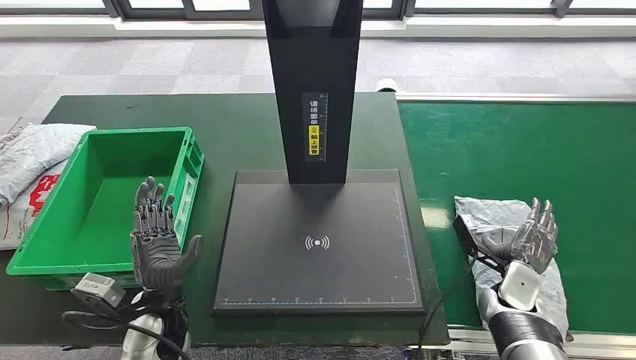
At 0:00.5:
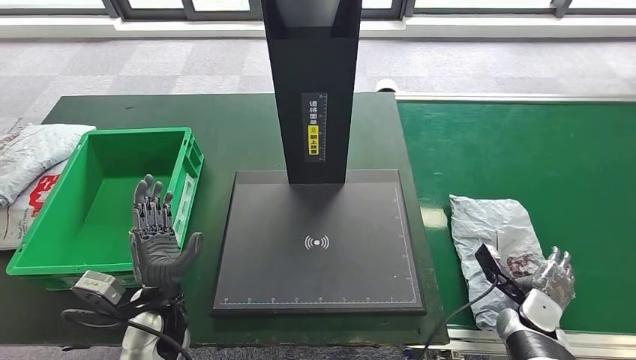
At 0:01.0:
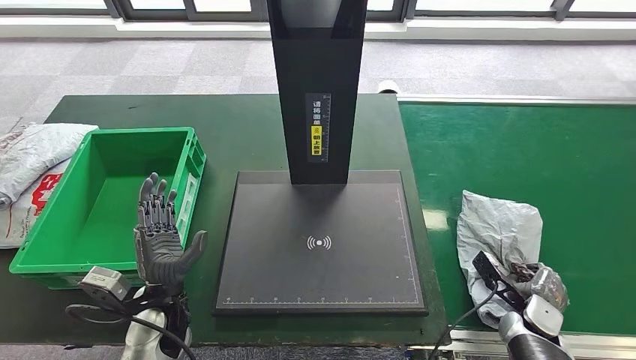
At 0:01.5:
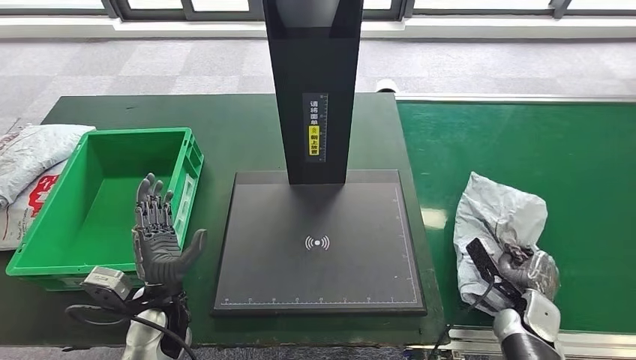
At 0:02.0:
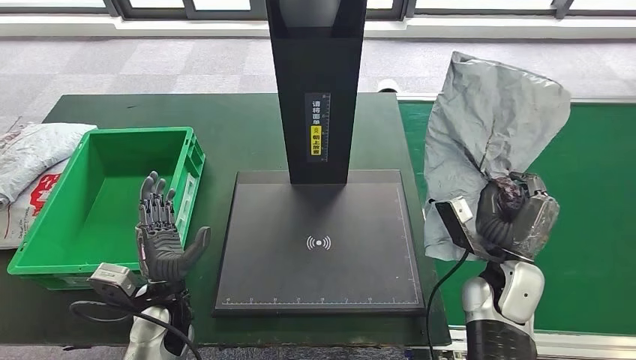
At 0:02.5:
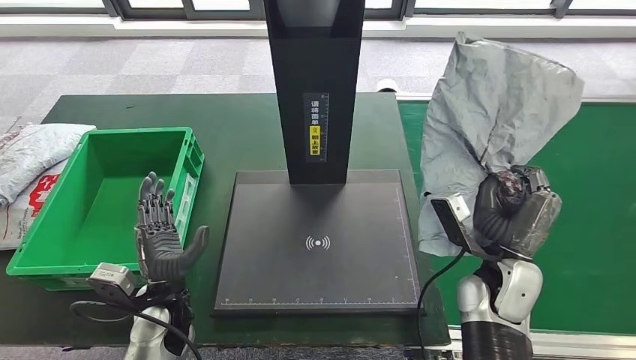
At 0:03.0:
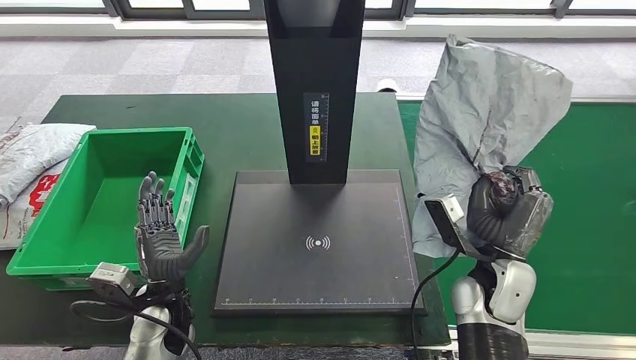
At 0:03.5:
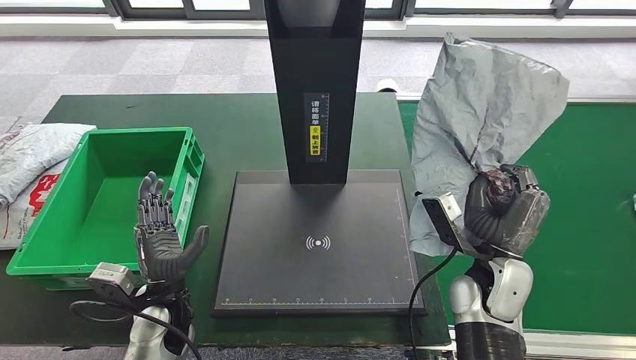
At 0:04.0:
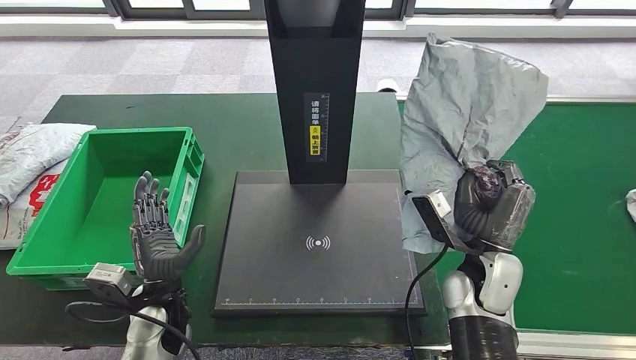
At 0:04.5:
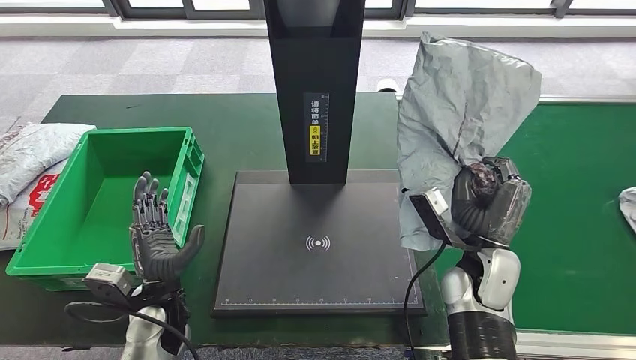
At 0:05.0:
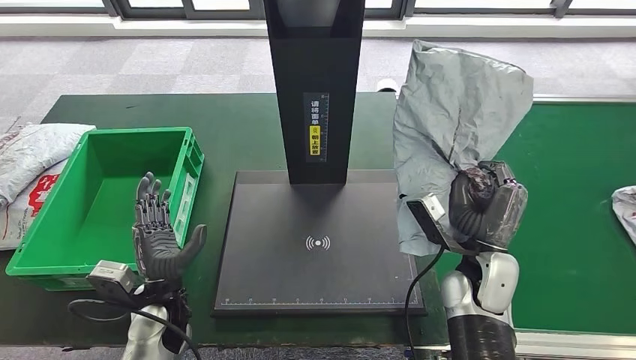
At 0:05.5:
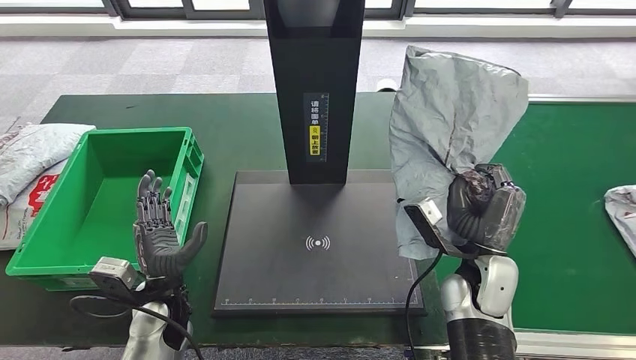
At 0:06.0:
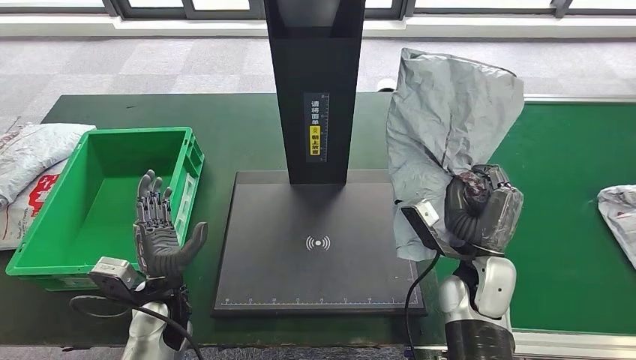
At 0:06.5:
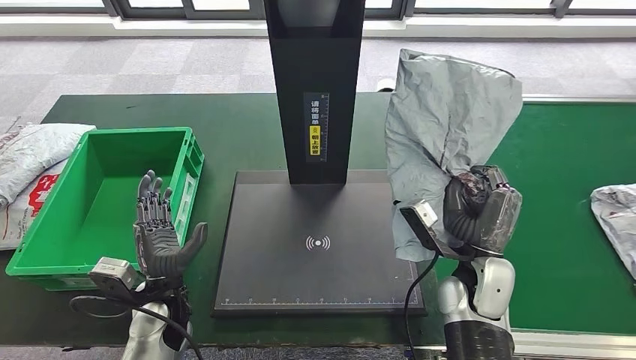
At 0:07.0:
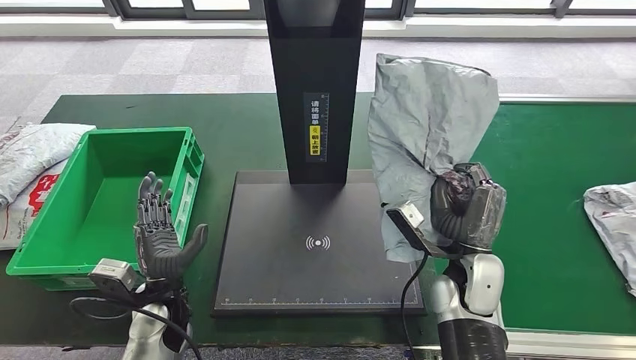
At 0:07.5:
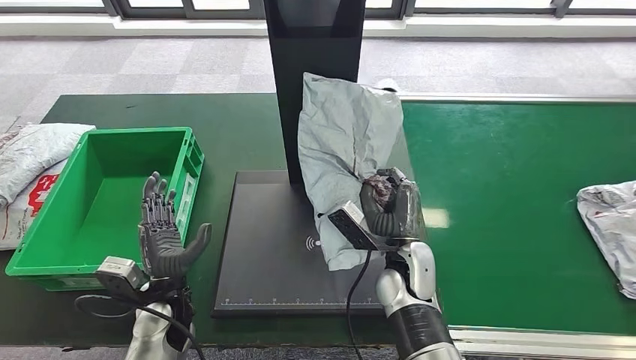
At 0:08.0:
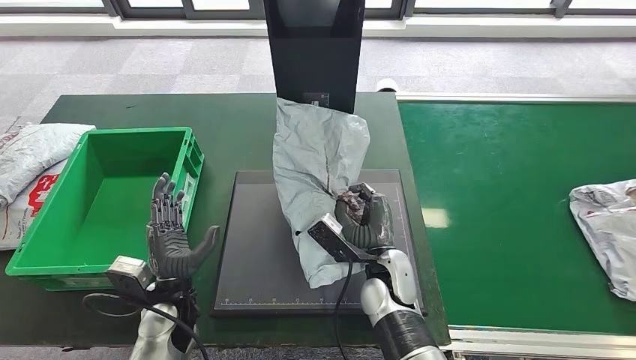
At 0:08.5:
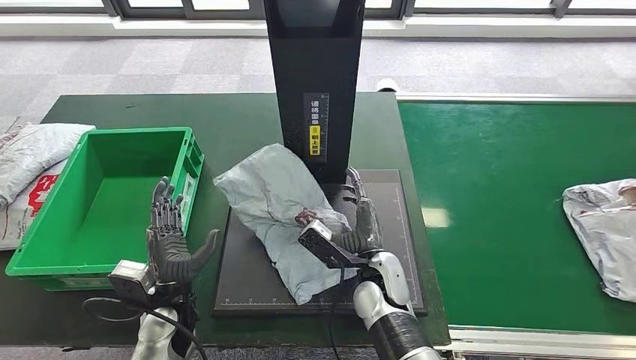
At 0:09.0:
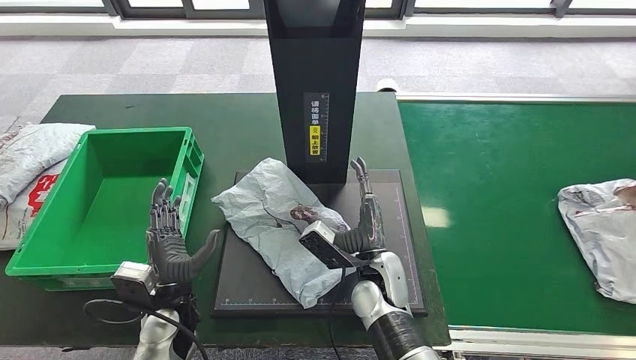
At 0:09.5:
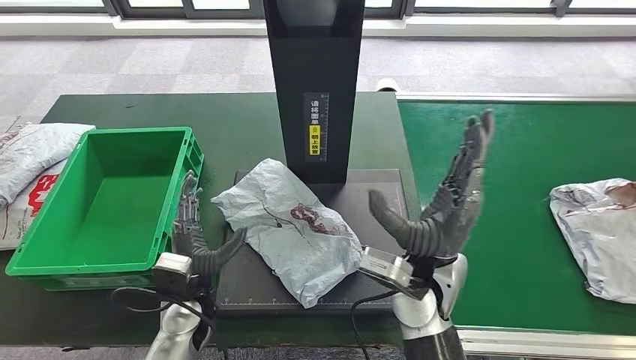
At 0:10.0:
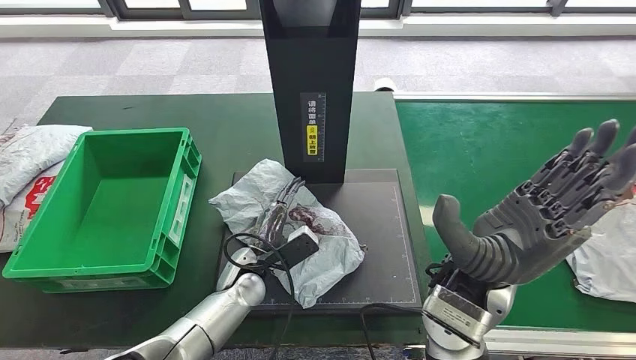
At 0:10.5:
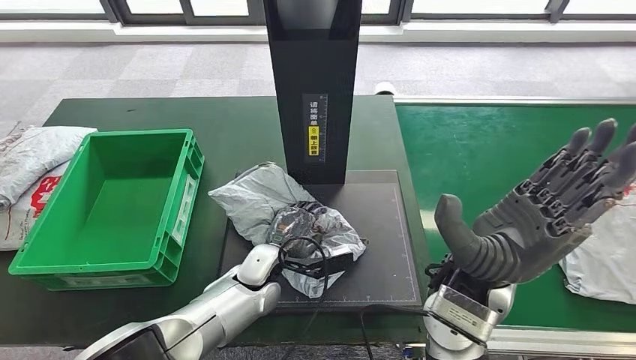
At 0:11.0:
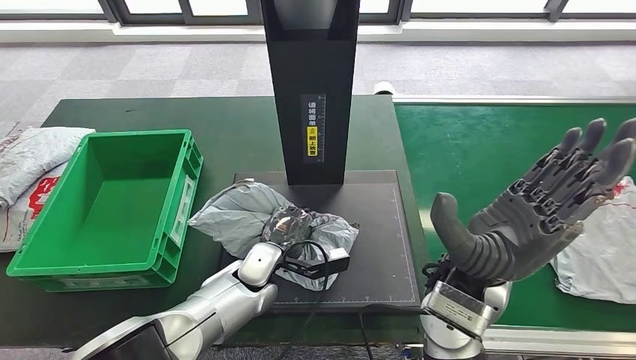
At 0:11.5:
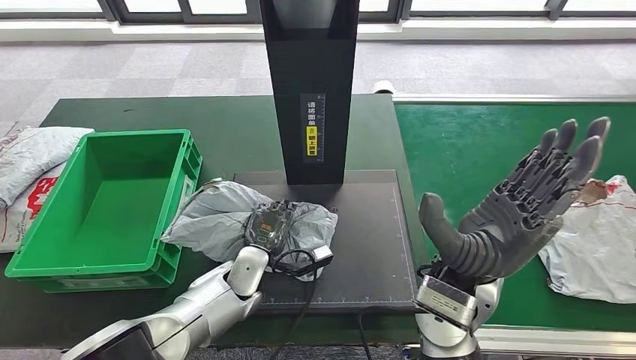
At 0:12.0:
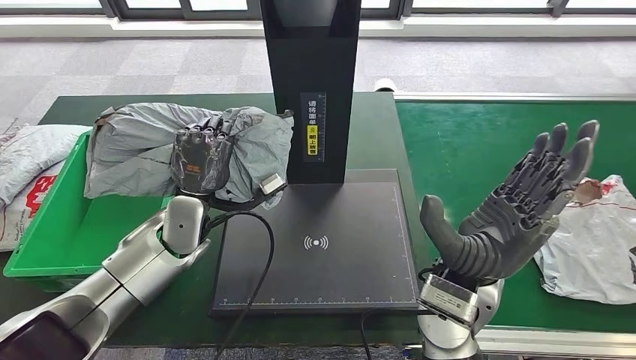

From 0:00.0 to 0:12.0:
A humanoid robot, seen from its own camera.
Step, from 0:00.0 to 0:02.0: Take the parcel off the conveyor belt.
Step, from 0:08.0 to 0:08.5: Place the parcel onto the inbound machine.
From 0:02.0 to 0:04.0: The hands stay close to where they were, moving slightly.
From 0:04.0 to 0:06.0: Neither hand changes place.

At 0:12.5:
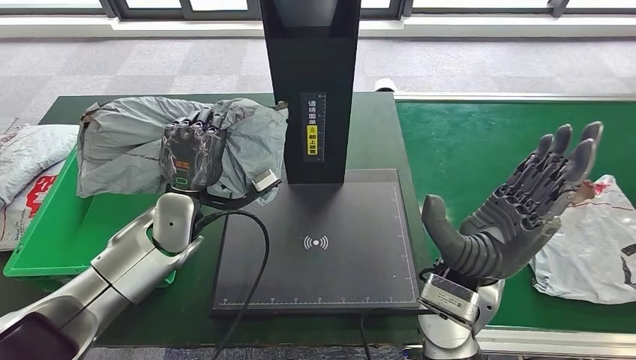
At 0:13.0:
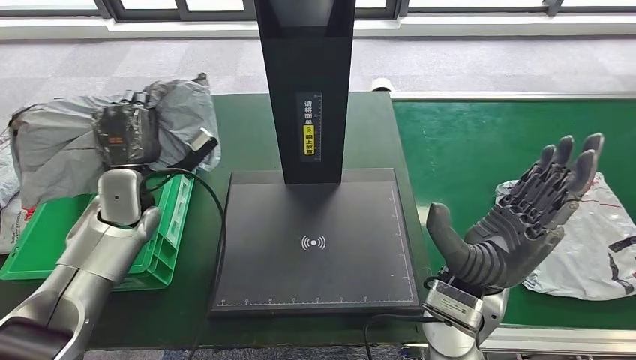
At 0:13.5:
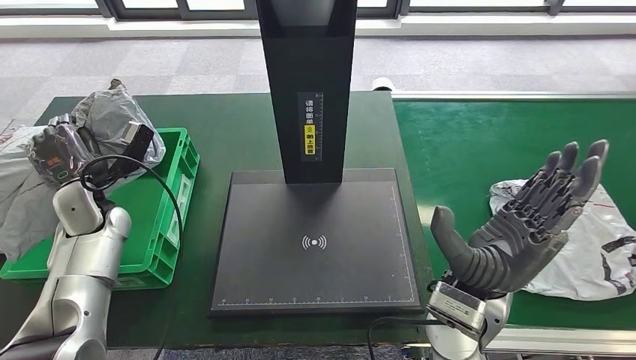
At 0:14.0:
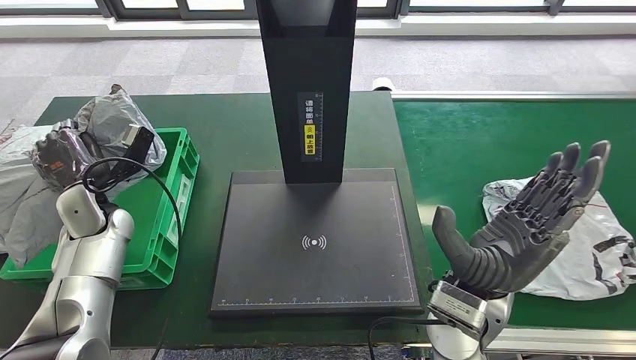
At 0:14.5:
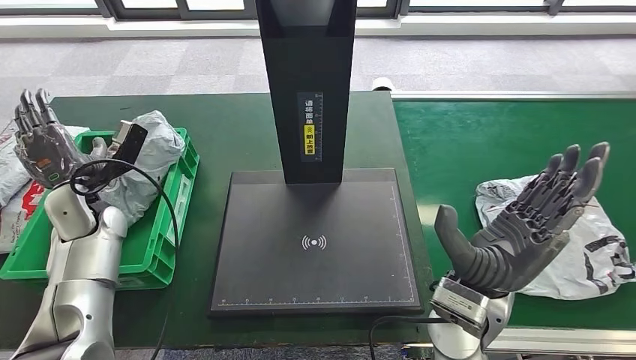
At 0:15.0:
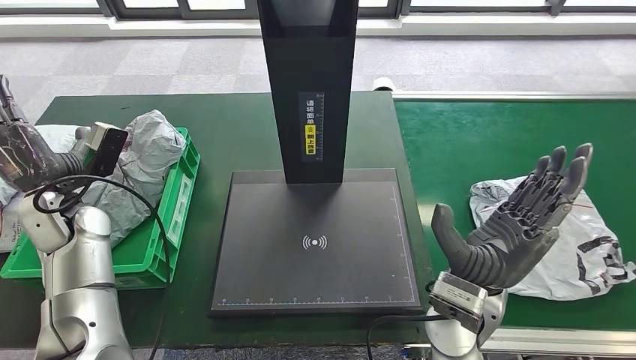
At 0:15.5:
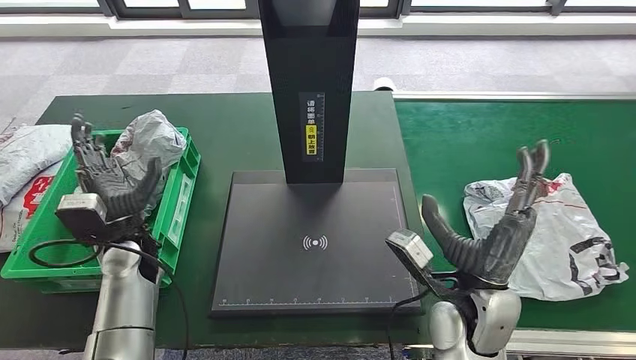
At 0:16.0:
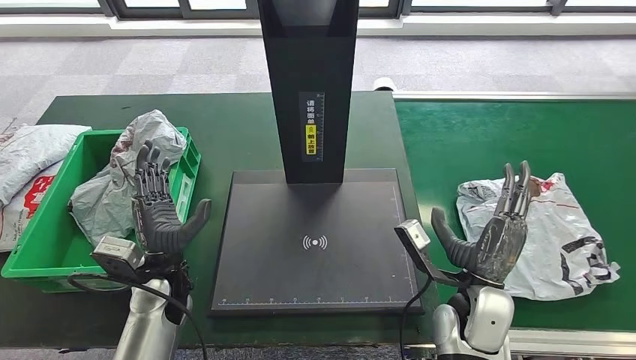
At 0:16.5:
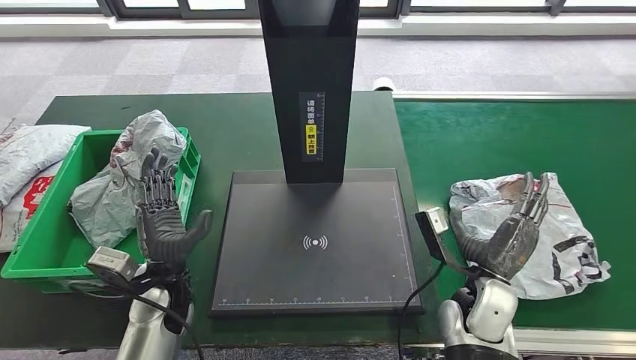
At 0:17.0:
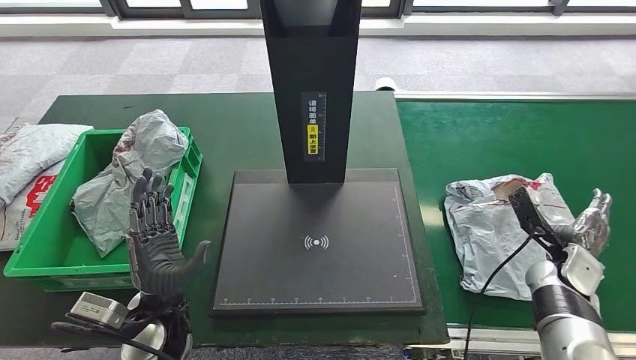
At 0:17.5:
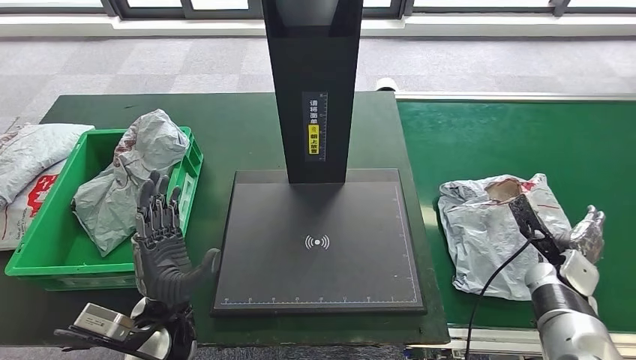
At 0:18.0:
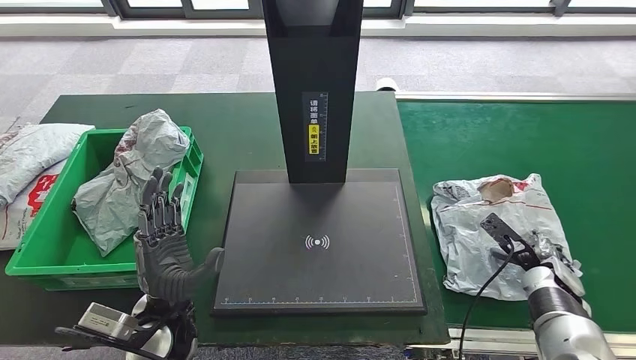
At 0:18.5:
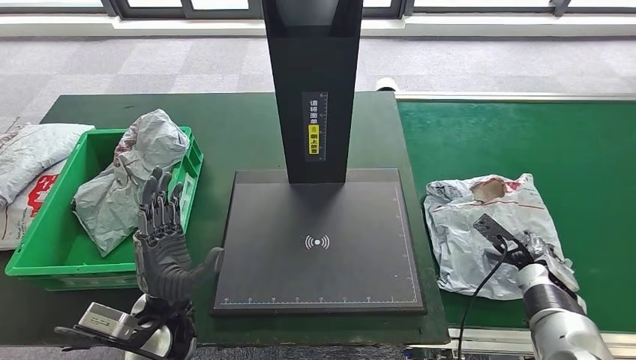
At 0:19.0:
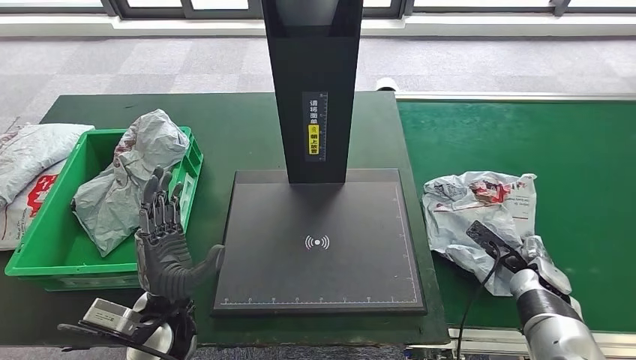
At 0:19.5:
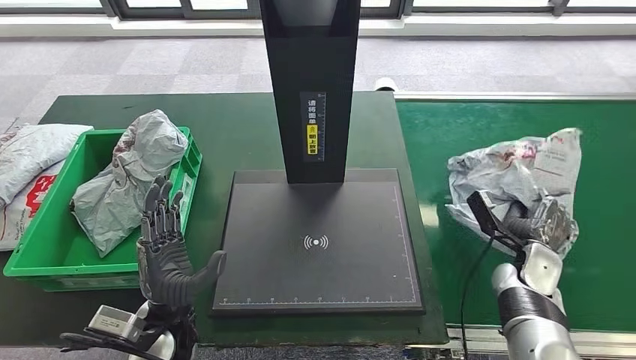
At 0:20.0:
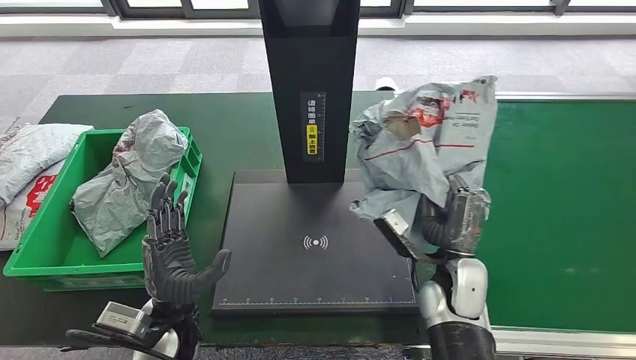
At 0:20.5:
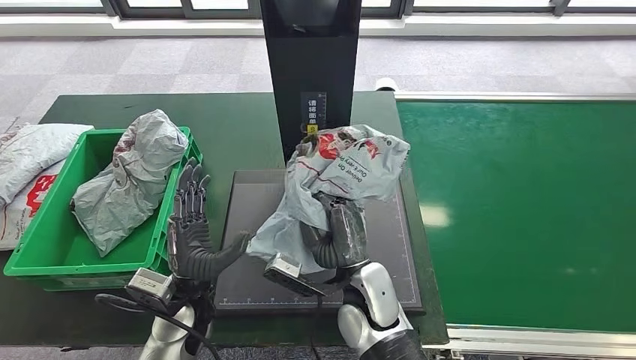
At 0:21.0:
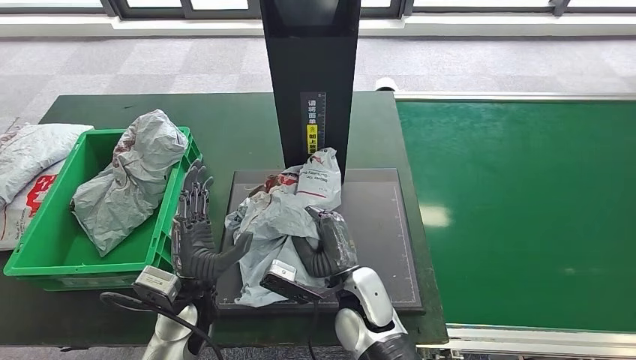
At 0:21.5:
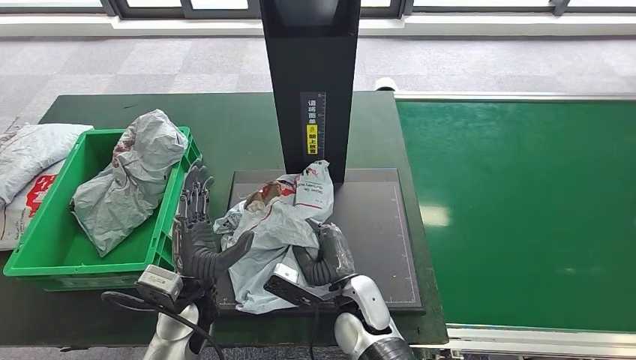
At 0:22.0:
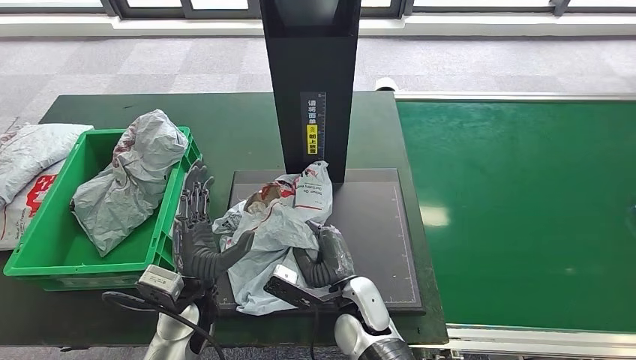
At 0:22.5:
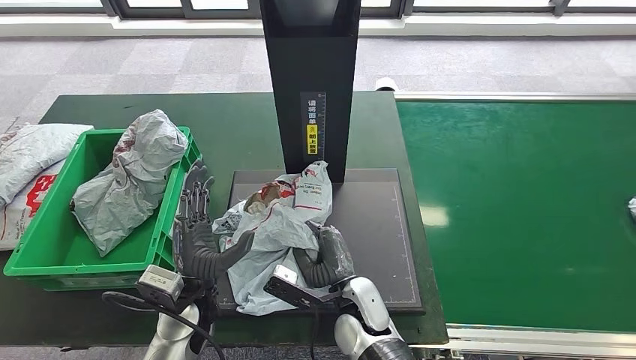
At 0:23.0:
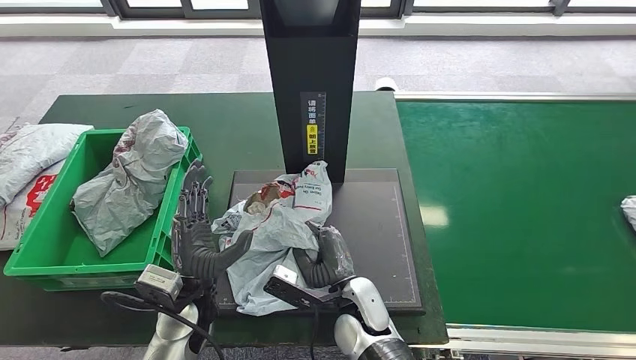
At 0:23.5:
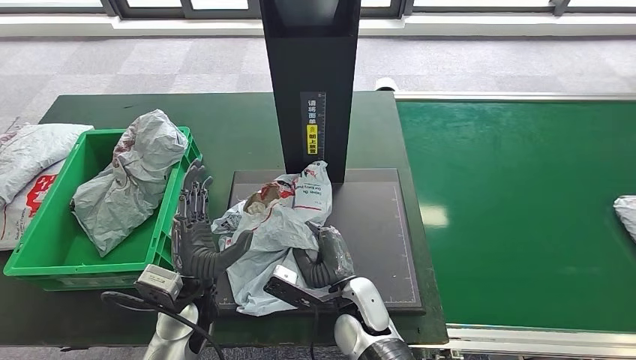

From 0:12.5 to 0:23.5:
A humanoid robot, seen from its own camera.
Step, from 0:12.5 to 0:15.0: Put the parcel inside the courier box.
Step, from 0:15.5 to 0:20.0: Pick up the parcel from the conveyor belt.
Step, from 0:20.5 to 0:23.0: Place the parcel onto the inbound machine.
From 0:21.5 to 0:23.5: Both hands stay about where they are.
